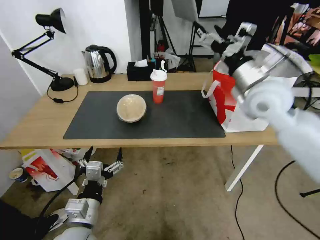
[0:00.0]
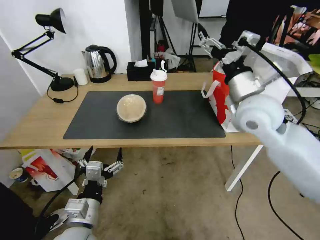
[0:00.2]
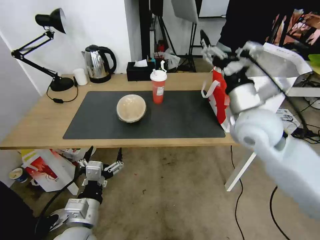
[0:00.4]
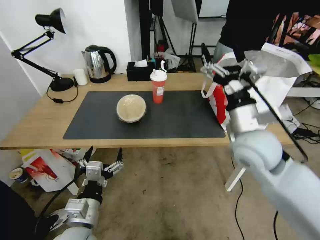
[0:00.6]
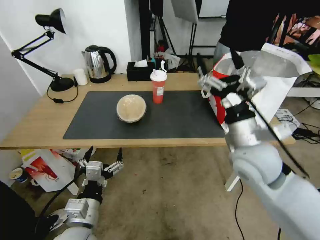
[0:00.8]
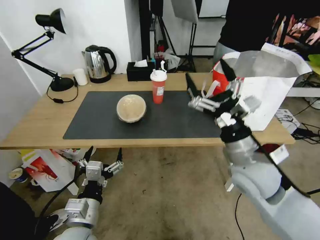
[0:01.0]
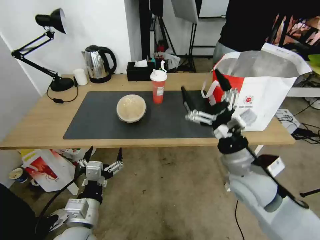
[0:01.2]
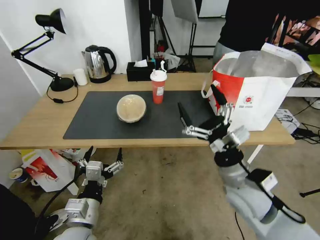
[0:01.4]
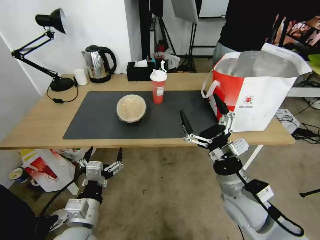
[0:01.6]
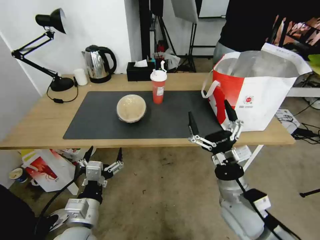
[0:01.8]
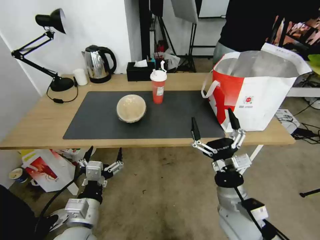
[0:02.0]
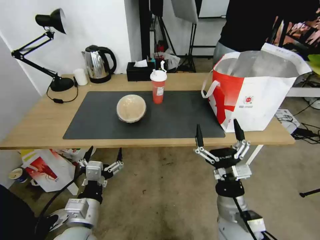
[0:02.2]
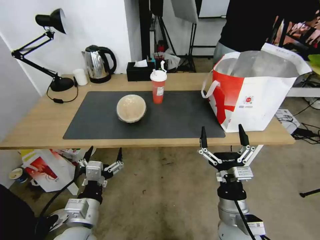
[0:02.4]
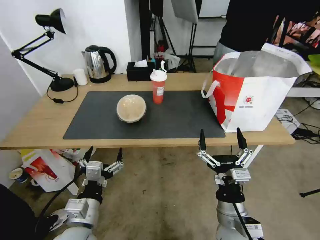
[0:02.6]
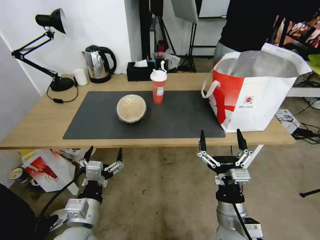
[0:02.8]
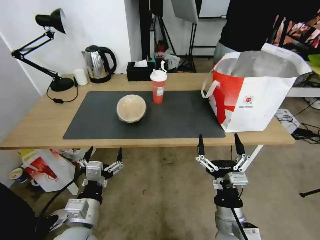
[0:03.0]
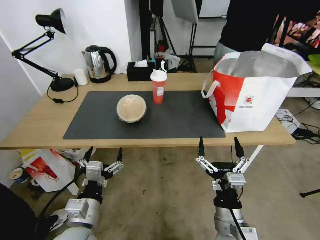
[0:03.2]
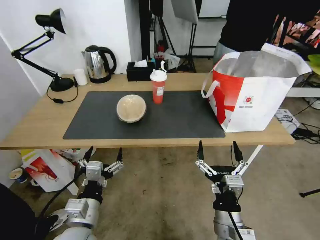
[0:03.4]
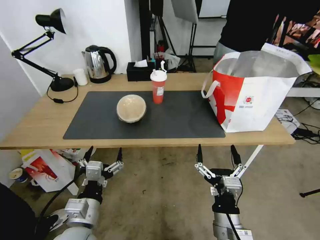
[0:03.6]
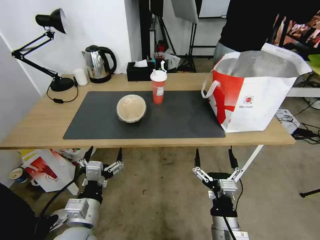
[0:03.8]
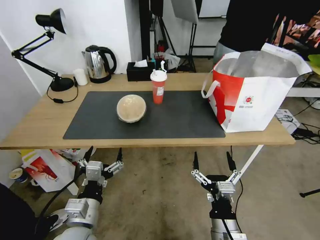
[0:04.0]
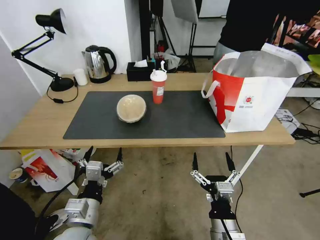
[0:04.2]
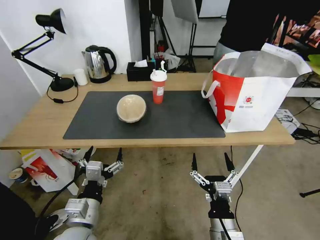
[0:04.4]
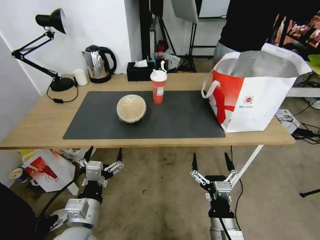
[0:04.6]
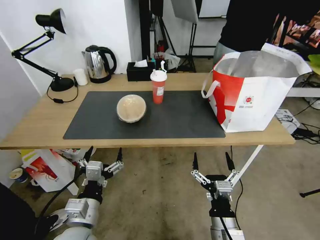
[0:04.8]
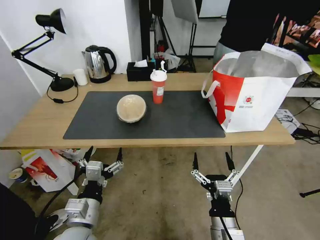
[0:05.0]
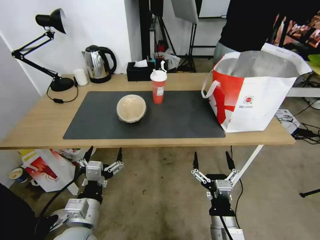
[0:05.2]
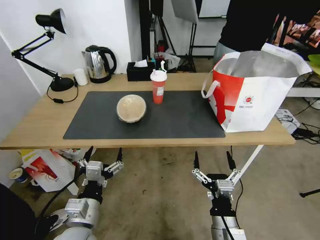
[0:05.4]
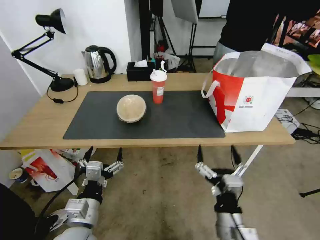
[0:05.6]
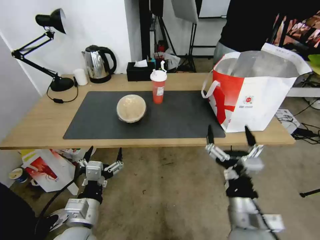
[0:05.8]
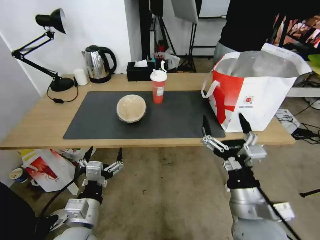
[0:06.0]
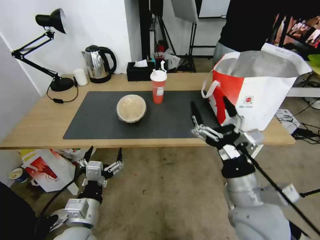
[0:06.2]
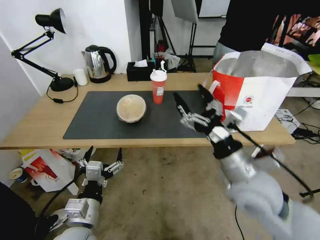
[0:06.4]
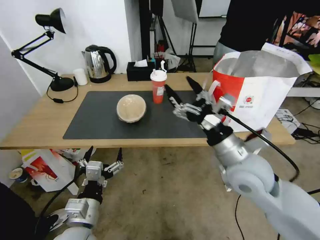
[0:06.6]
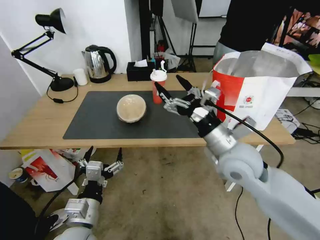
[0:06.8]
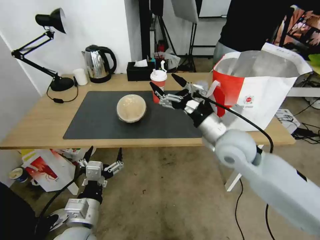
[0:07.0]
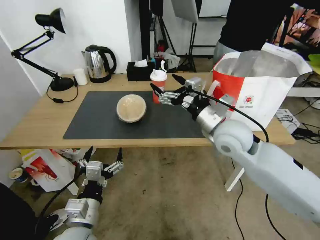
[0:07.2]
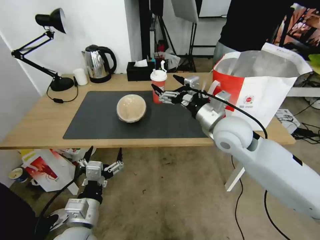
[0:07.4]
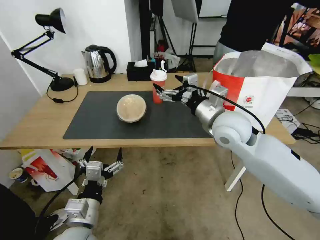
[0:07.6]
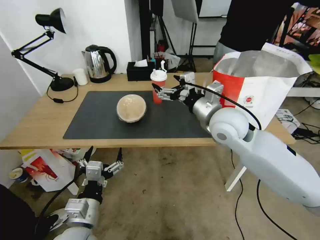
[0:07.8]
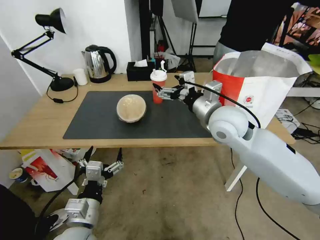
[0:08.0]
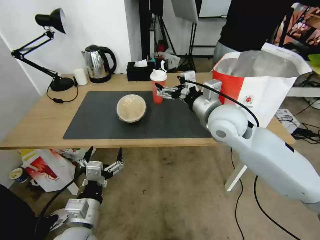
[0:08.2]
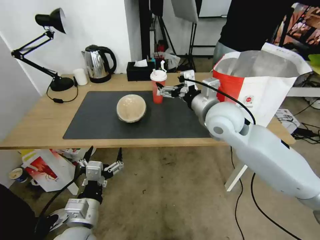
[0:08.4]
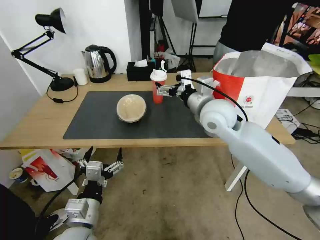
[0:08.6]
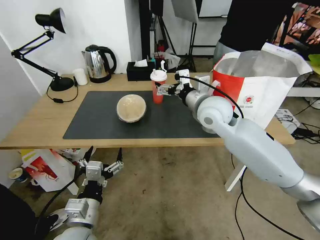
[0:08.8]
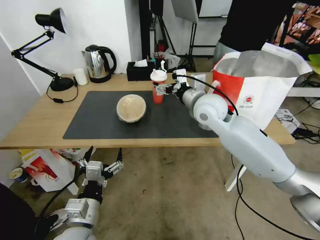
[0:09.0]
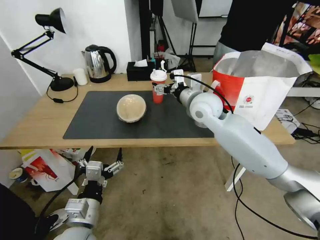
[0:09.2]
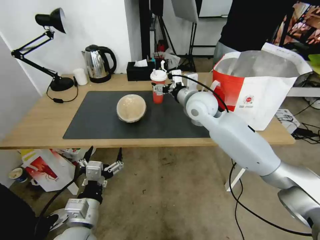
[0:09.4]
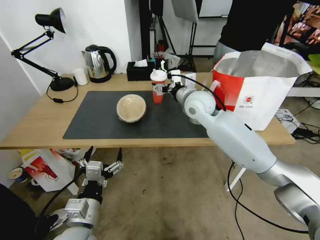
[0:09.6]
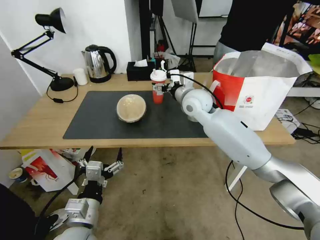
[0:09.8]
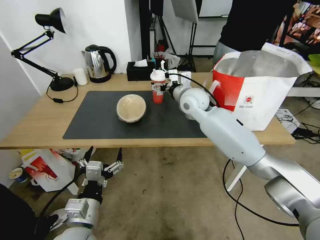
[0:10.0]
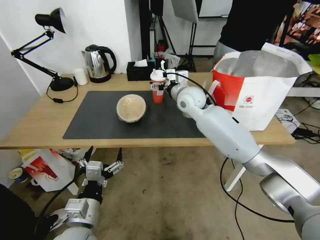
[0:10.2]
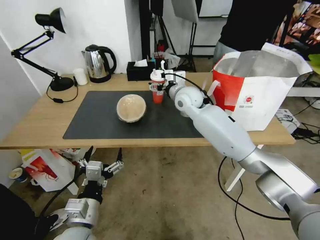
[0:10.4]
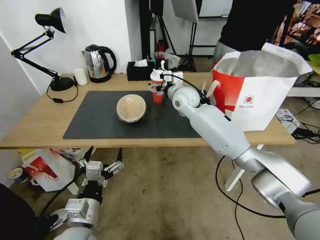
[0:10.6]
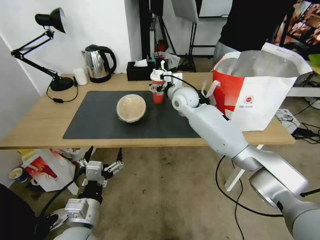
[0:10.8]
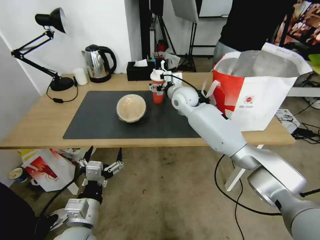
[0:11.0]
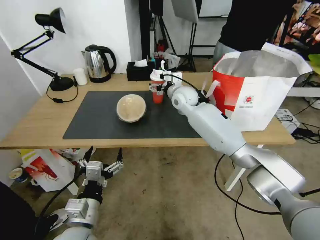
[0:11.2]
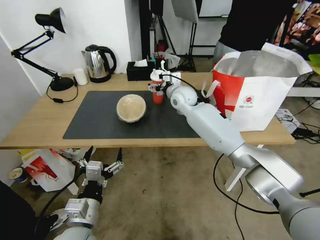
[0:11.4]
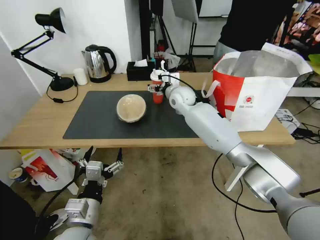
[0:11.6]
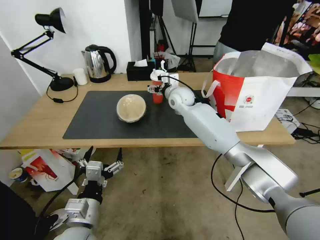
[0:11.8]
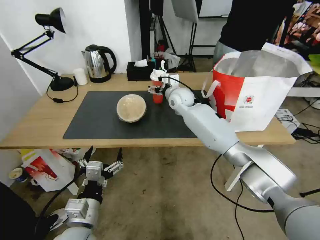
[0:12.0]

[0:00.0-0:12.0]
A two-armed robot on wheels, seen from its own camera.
Task of the whole recording: Pick up the trash from the table and place it into the takeout bag.
0:00.0 to 0:01.6: The right gripper is displaced downward and backward by some 30 cm.
0:01.6 to 0:03.0: The right gripper travels backward and downward by some 10 cm.
0:03.0 to 0:04.4: The grippers move only a little.
0:04.4 to 0:06.0: The right gripper goes roughly 15 cm upward.
0:06.0 to 0:07.6: The right gripper is displaced forward by some 20 cm.
0:07.6 to 0:09.0: The right gripper shifts some 5 cm forward.
0:09.0 to 0:10.4: The right gripper travels forward by about 10 cm.
0:10.4 to 0:12.0: The right gripper moves forward, some 5 cm.

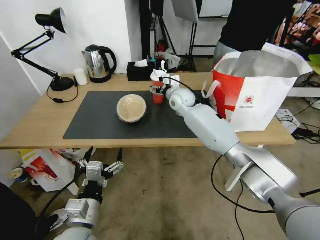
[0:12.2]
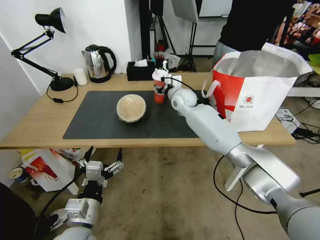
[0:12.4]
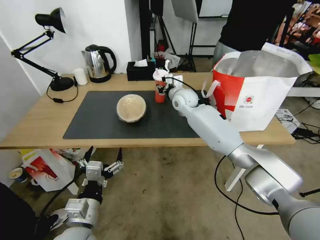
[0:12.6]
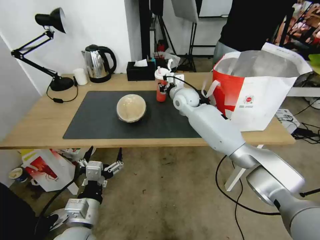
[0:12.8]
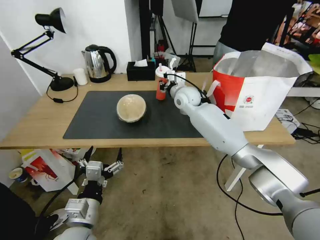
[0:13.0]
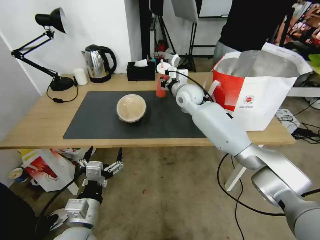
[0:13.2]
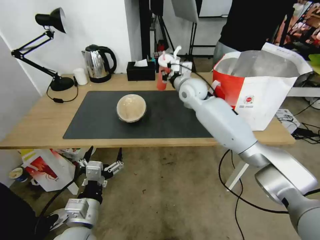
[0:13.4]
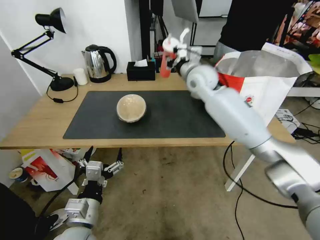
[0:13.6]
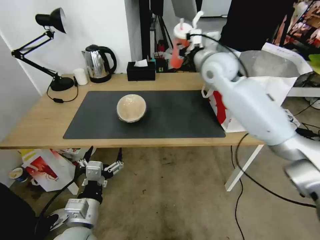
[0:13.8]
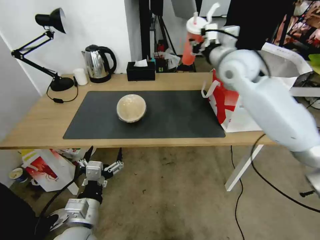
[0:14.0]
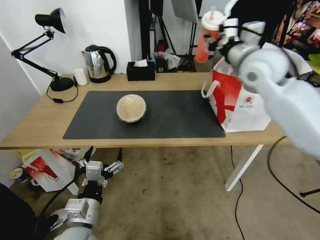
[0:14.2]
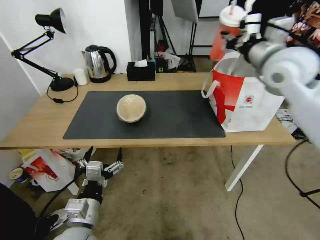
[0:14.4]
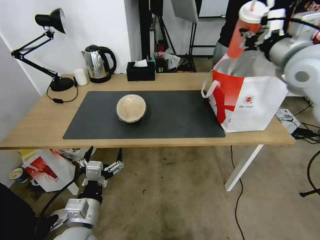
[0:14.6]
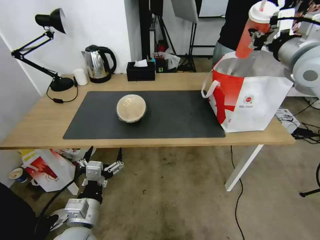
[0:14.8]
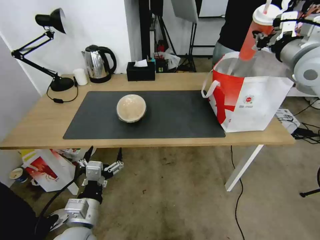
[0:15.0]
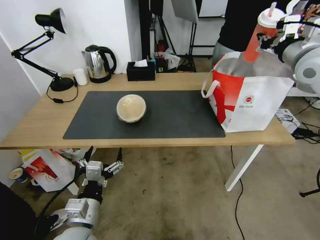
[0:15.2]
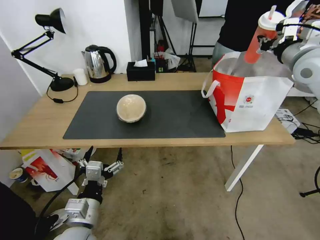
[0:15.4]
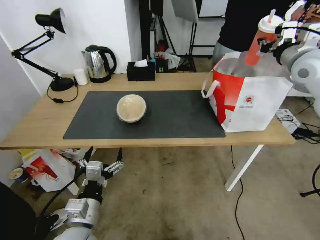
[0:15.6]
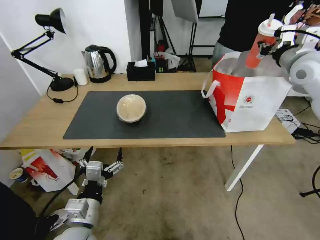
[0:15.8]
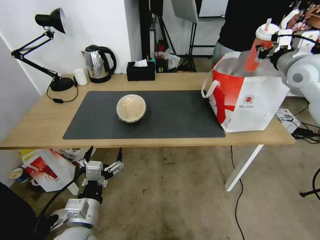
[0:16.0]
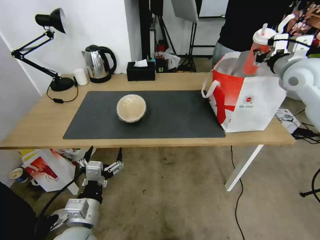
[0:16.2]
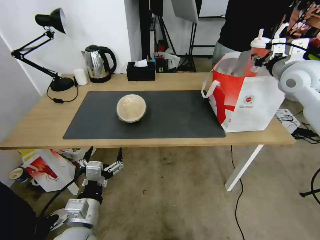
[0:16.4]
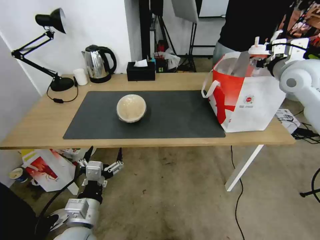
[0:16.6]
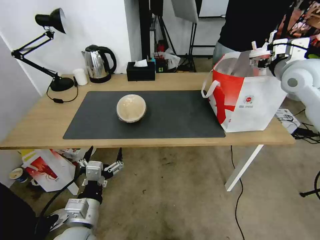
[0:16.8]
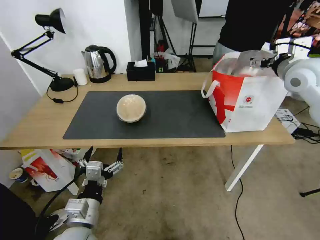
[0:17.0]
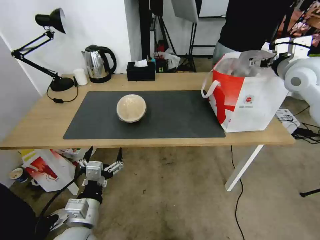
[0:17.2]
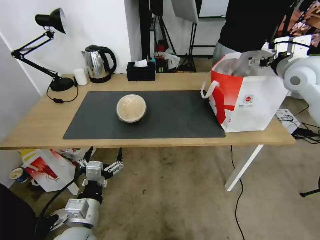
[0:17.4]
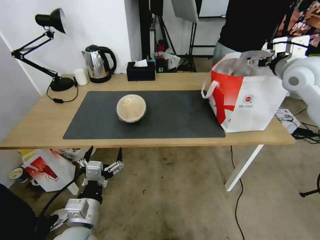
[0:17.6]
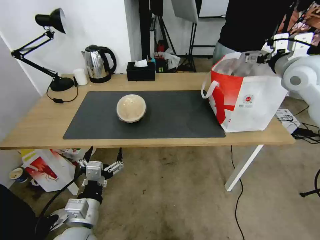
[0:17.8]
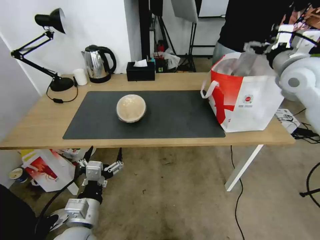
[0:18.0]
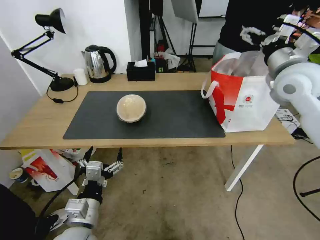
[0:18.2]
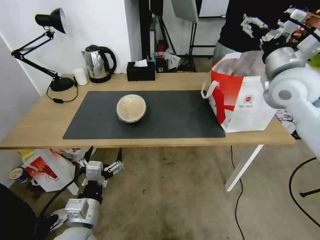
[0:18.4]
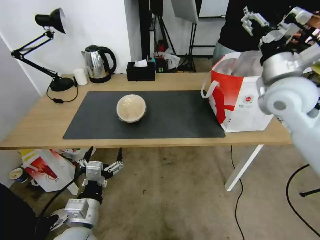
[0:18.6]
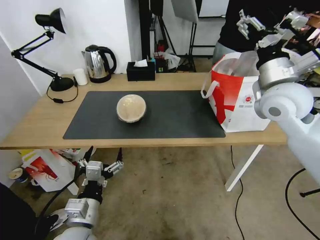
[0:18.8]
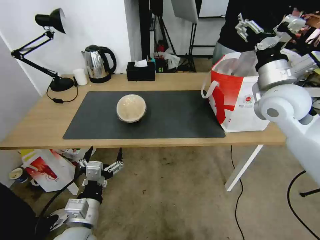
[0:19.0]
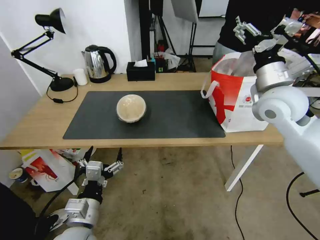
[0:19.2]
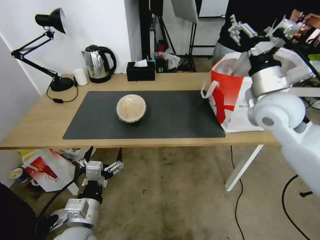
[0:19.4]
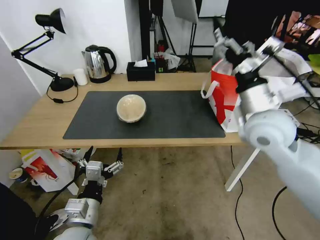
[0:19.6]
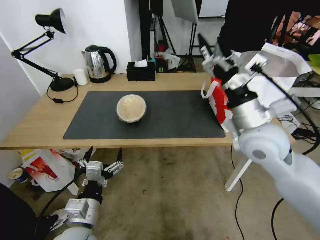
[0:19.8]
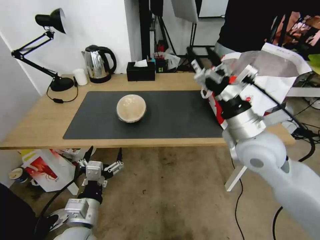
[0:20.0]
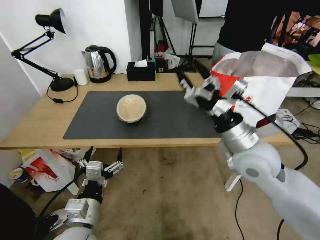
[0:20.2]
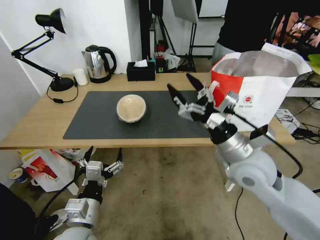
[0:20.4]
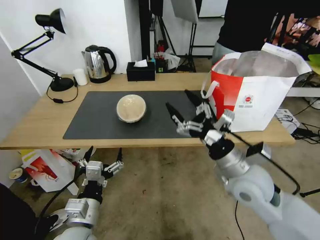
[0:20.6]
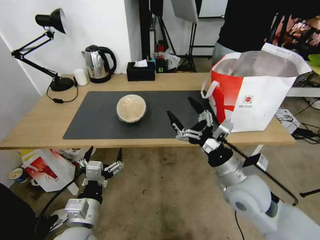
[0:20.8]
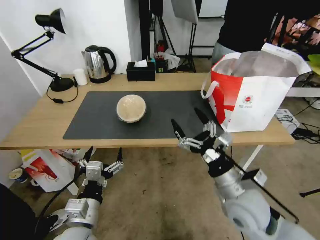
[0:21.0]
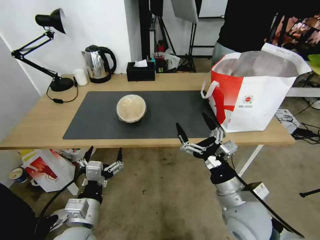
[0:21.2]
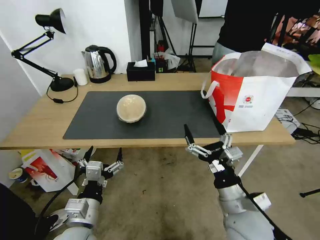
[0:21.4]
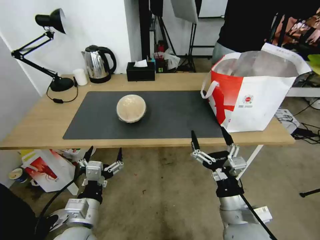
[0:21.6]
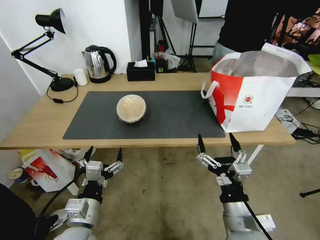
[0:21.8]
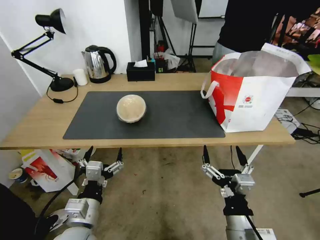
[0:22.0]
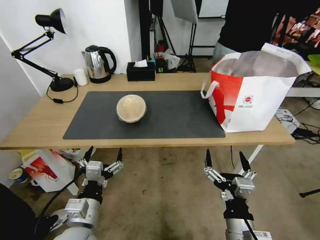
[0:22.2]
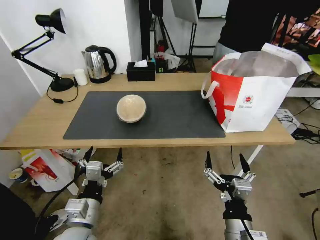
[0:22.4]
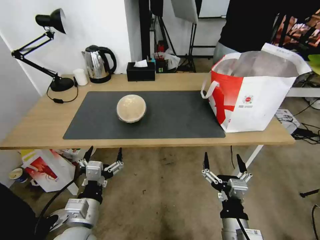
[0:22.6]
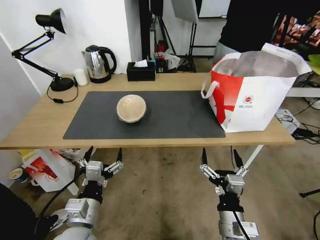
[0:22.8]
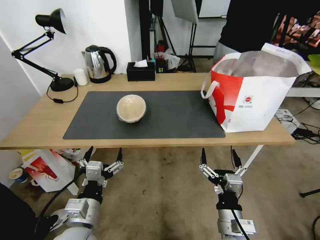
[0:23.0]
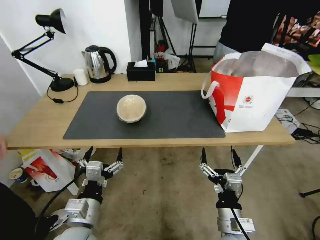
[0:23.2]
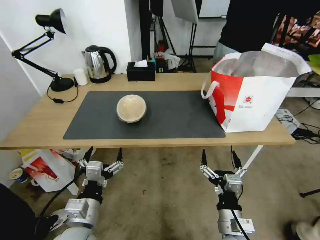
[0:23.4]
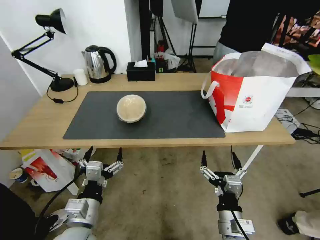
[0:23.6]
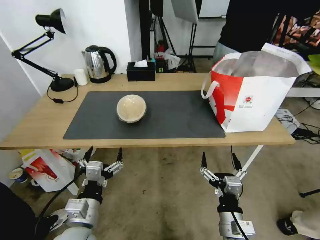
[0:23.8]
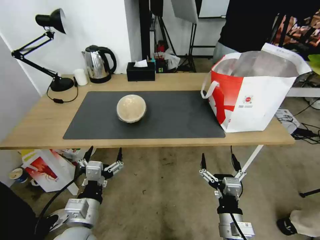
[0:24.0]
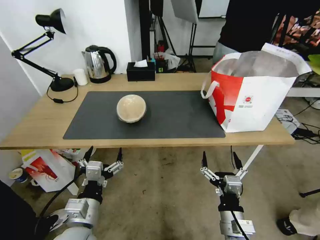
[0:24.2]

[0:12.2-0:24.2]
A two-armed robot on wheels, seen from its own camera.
Task of the whole recording: Pick up the trash from the table and place it into the takeout bag.
0:12.2 to 0:13.8: The right gripper is displaced upward and to the right by about 20 cm, and closes.
0:13.8 to 0:15.2: The right gripper is displaced to the right by about 20 cm.
0:15.2 to 0:16.6: The right gripper changes place by about 5 cm, and opens its fingers.
0:16.6 to 0:18.2: The right gripper changes place by about 5 cm, and opens up.
0:18.2 to 0:19.8: The right gripper heads backward, to the left and downward, covering about 20 cm.
0:19.8 to 0:21.2: The right gripper moves downward and backward, roughly 20 cm.
0:21.2 to 0:22.6: The right gripper shifts roughly 10 cm backward and downward.
0:22.6 to 0:24.2: There are only small adjustments of the grippers.
